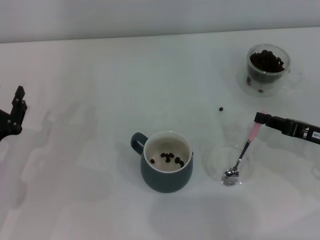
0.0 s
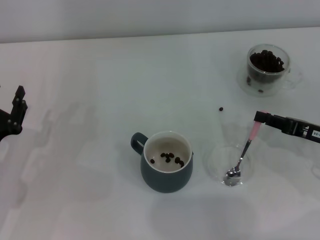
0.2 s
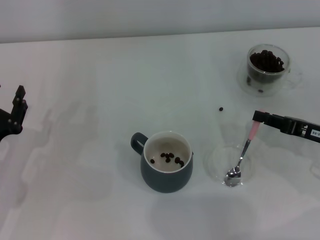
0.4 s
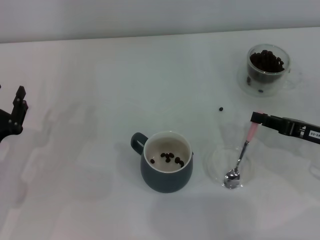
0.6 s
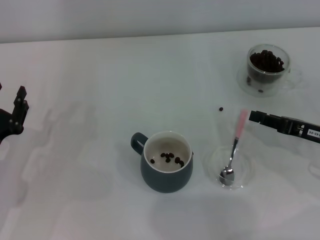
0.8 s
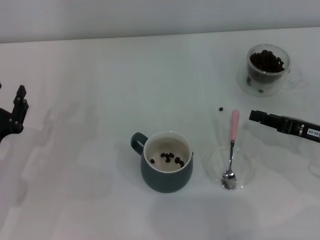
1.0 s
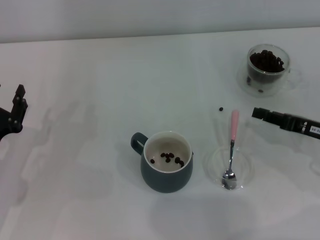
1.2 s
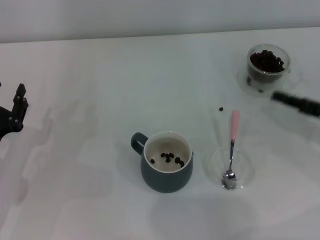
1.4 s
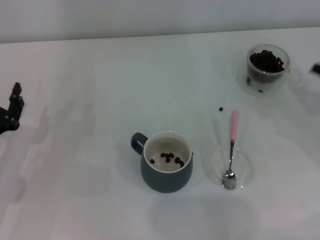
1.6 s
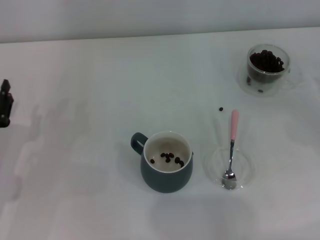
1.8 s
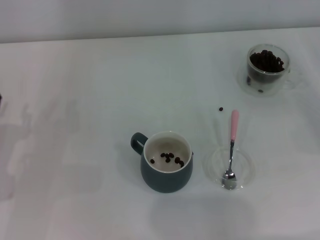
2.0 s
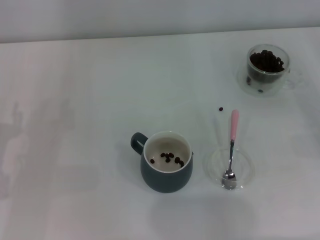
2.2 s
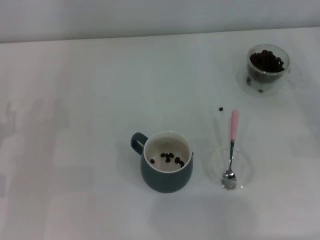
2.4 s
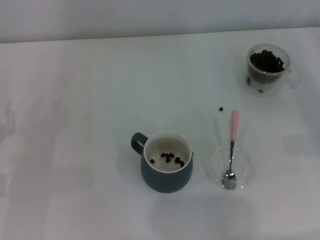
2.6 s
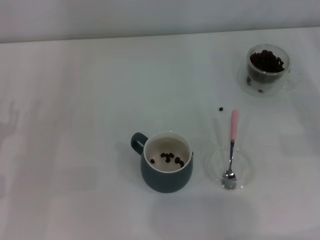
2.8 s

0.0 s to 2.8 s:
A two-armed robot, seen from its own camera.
Task of the whole recording: Use a pink spoon to take out the coffee beans from the glass and pour them into the gray cup.
0.0 to 1.4 s: The grippers stay close to where they were, moving slightly.
1.4 to 2.8 s: The right gripper travels to the right by roughly 5 cm, and opens its fingers.
